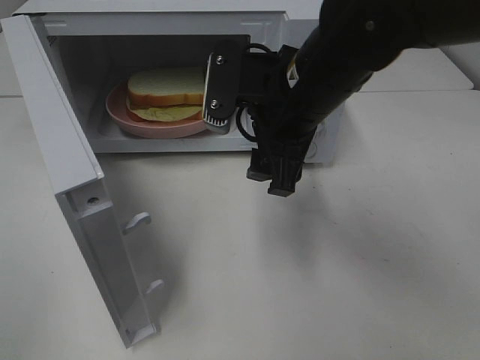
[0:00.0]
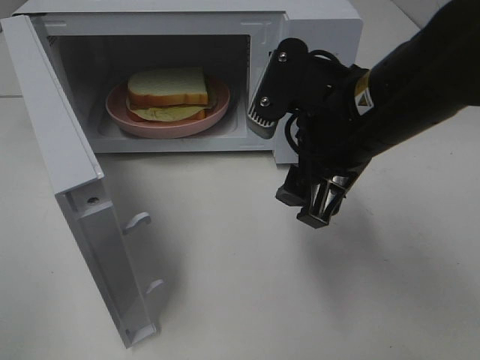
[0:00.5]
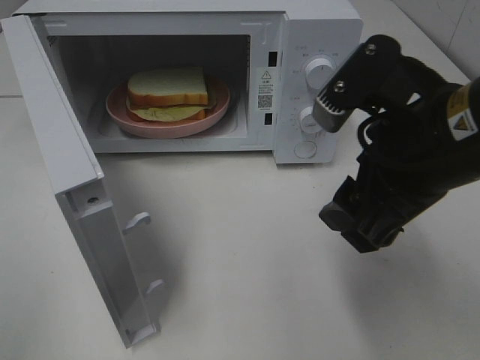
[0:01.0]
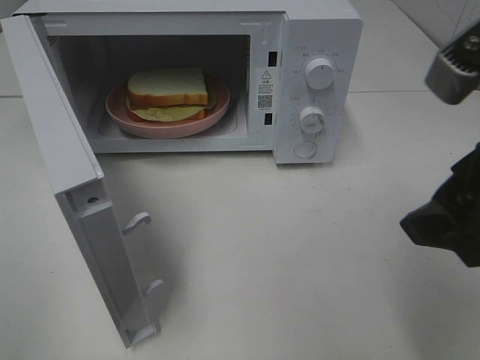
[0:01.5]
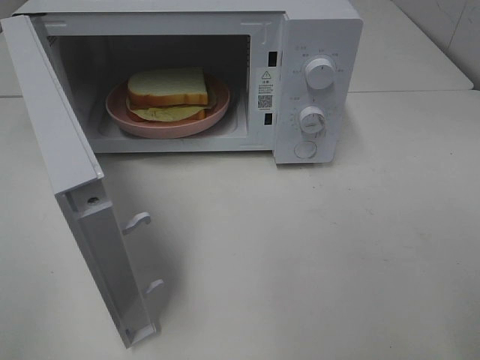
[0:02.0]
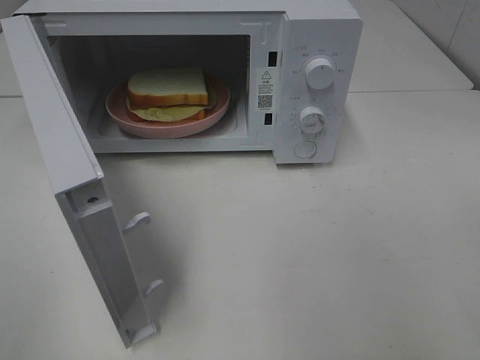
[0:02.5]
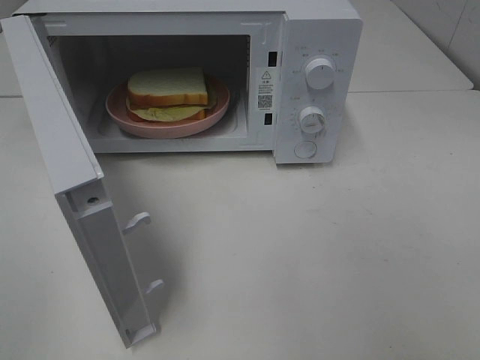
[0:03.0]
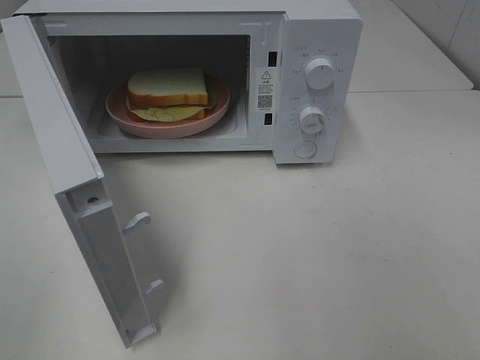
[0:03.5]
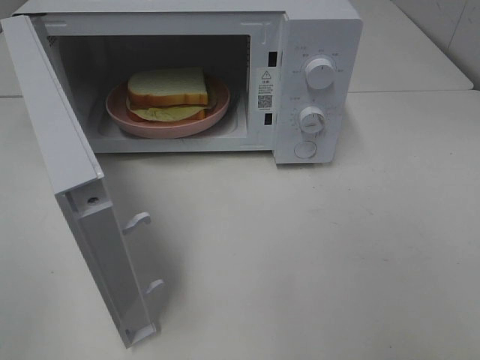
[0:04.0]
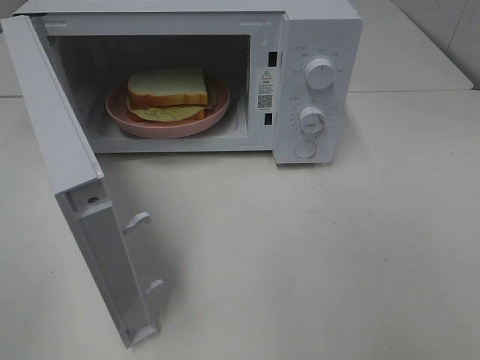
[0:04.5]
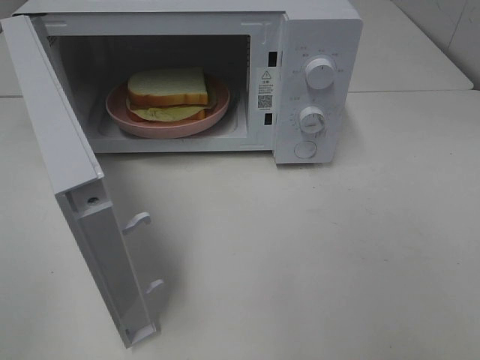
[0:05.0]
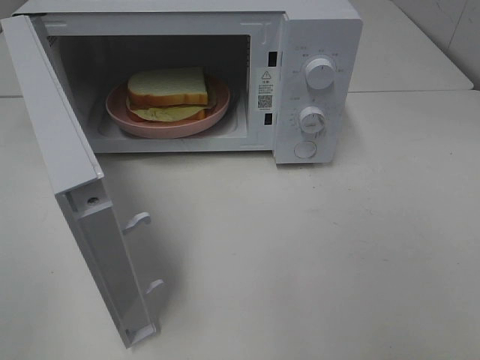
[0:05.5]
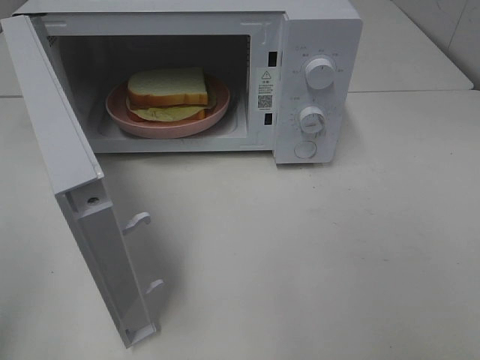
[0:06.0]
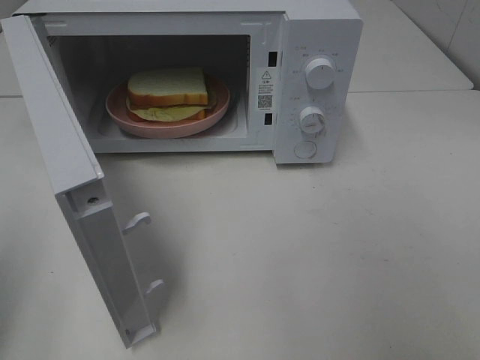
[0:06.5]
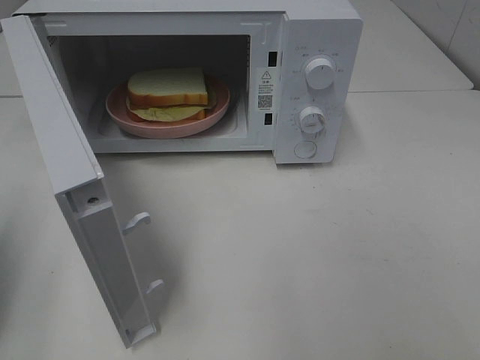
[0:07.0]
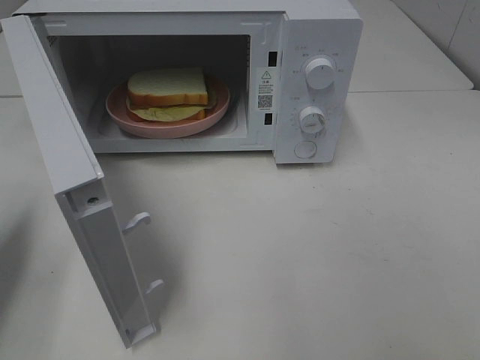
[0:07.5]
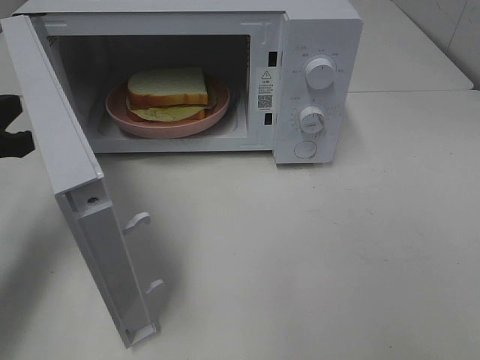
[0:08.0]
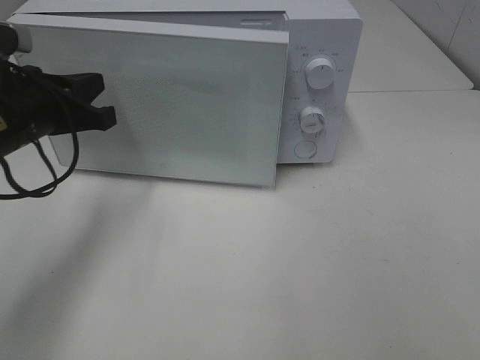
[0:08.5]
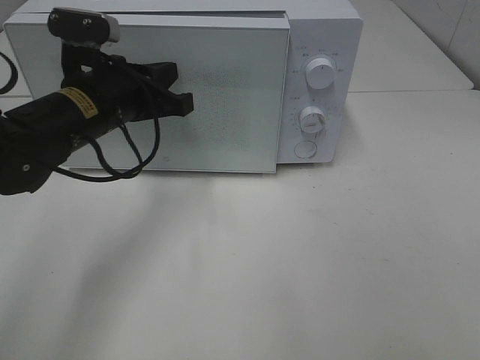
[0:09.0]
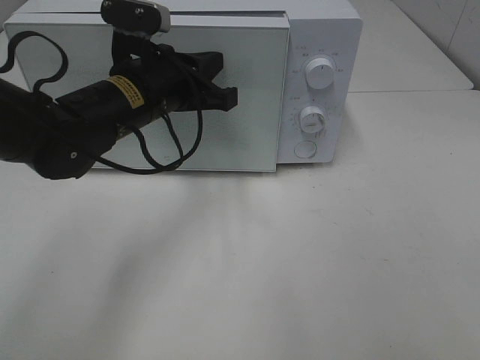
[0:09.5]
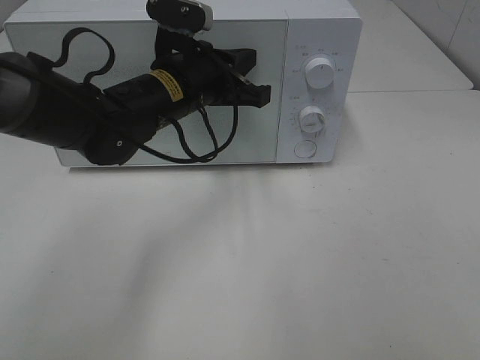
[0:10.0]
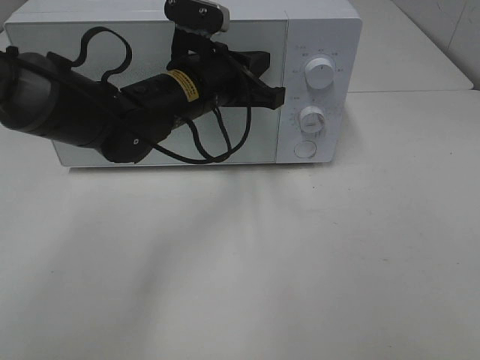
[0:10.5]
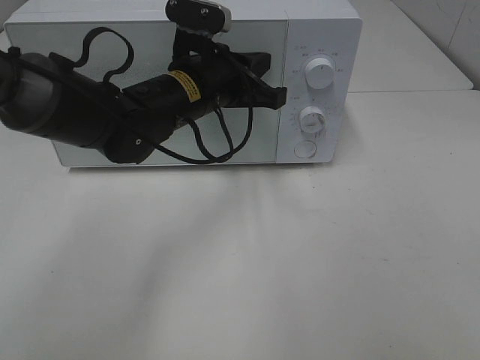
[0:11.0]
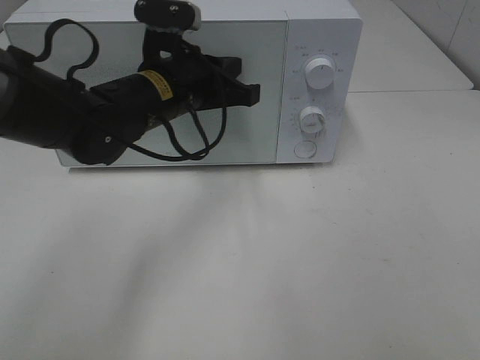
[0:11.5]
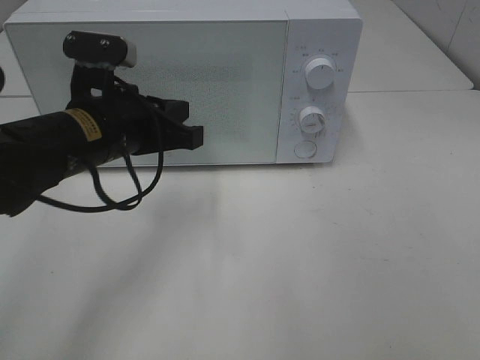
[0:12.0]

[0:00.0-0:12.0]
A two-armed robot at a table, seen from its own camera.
Task of the whole recording: Heat Sandwich.
Step, 0:00.0 to 0:11.5: Left hand: close the microwave door.
0:00.0 to 0:02.0: The right gripper moves backward, to the right and upward, approximately 25 cm.
0:06.0 to 0:08.0: The left gripper travels forward and downward by about 25 cm, and closes its fingers.
0:08.0 to 0:10.0: The left gripper heads to the right and forward, covering some 25 cm.
0:10.0 to 0:12.0: The left gripper heads backward and to the left, covering some 10 cm.

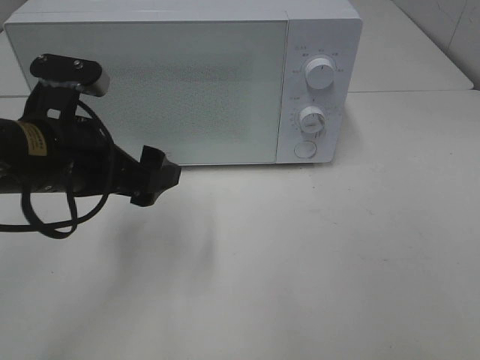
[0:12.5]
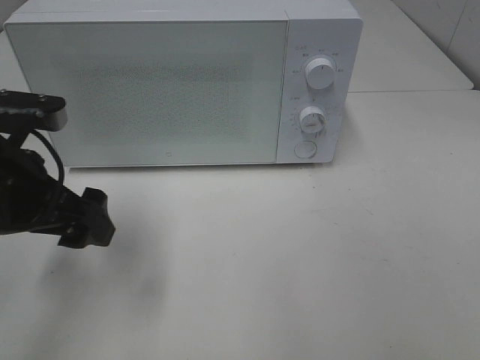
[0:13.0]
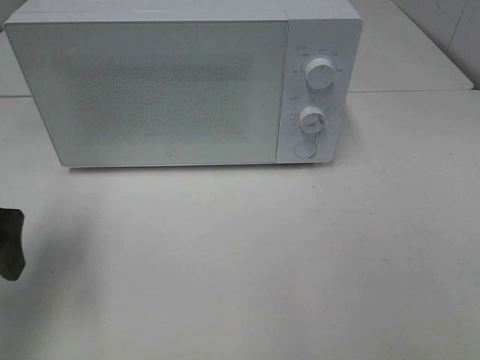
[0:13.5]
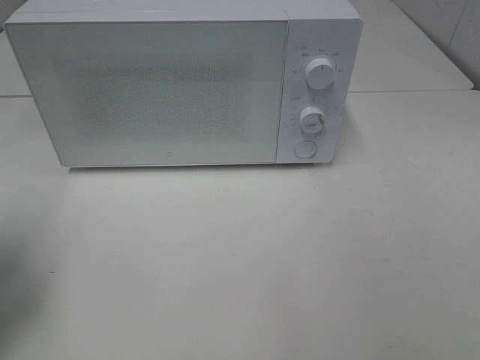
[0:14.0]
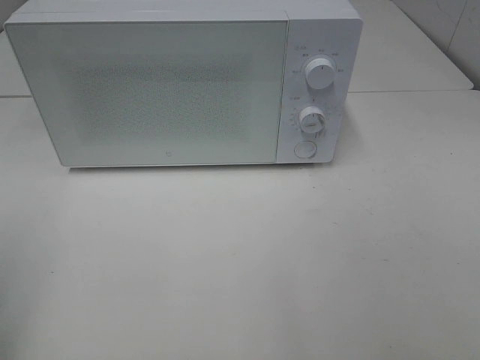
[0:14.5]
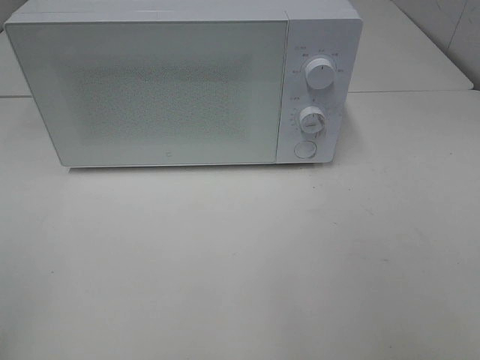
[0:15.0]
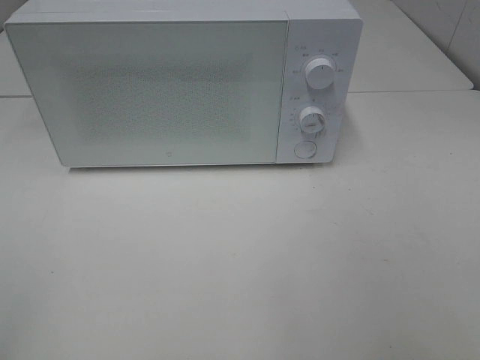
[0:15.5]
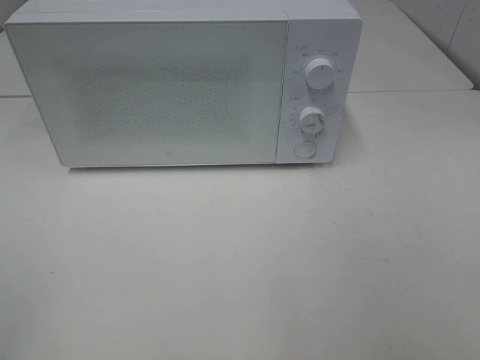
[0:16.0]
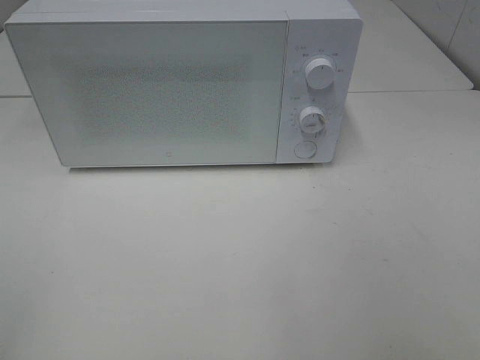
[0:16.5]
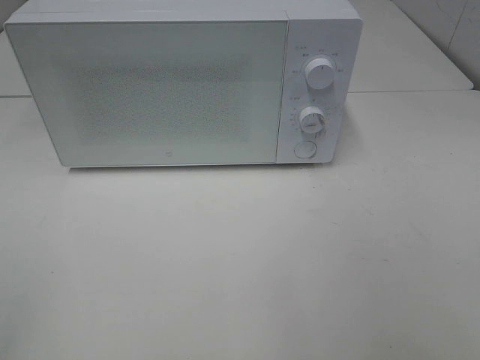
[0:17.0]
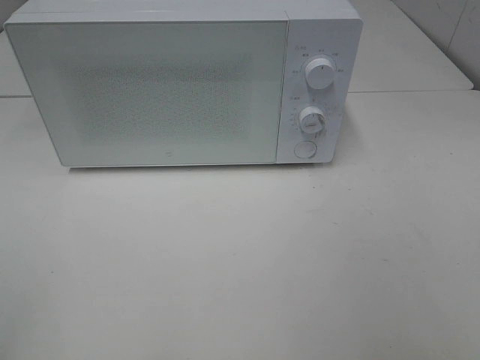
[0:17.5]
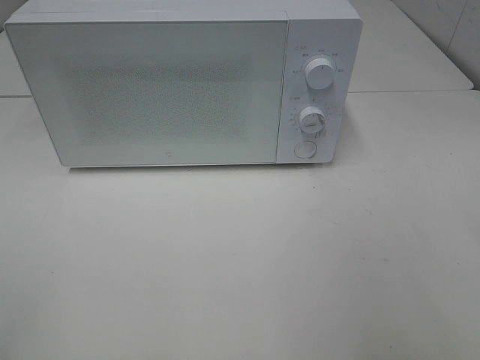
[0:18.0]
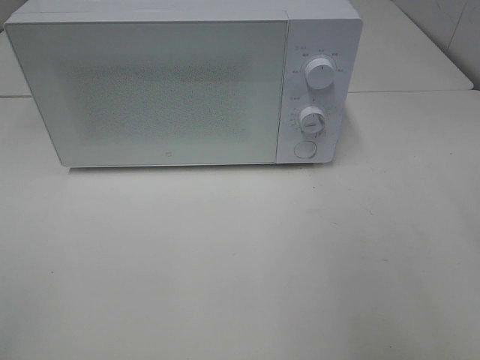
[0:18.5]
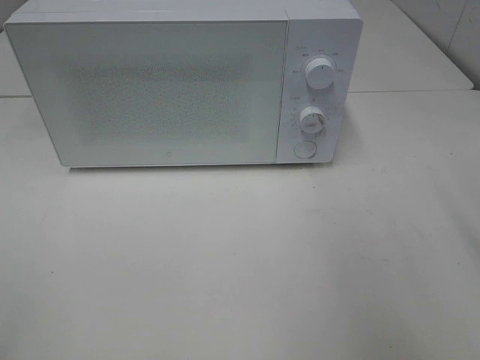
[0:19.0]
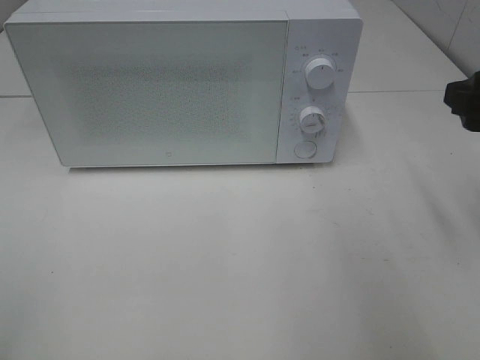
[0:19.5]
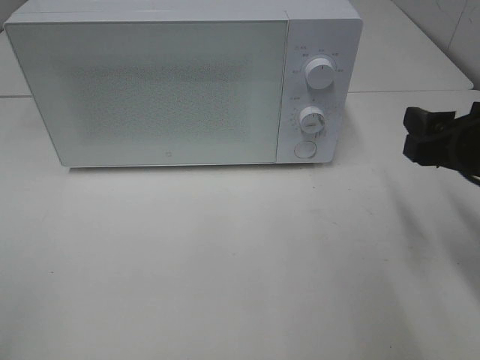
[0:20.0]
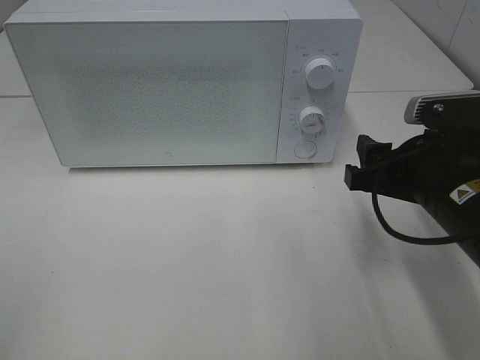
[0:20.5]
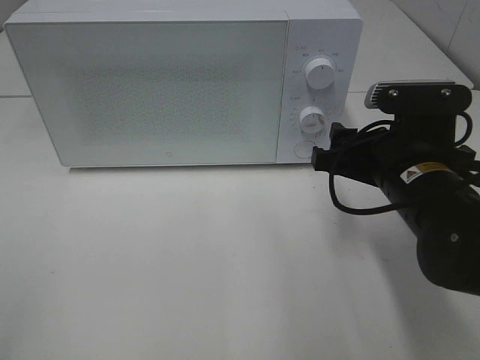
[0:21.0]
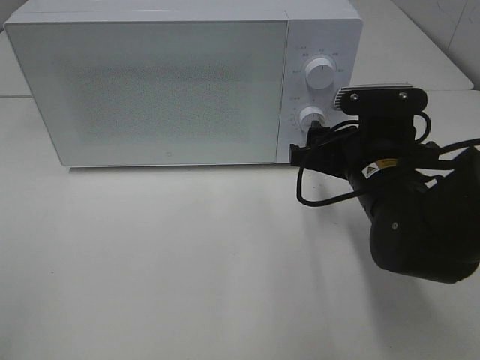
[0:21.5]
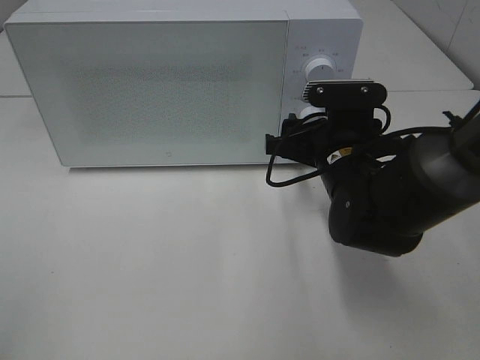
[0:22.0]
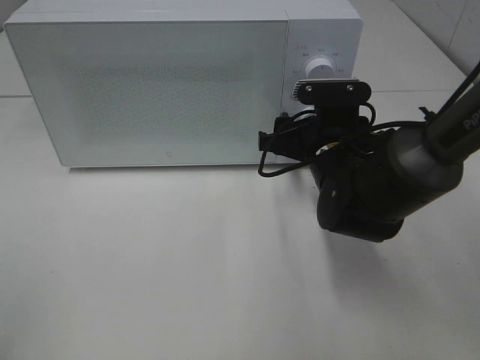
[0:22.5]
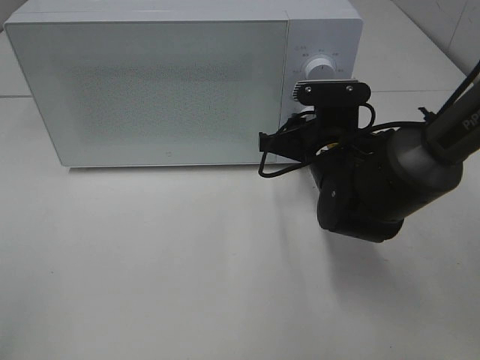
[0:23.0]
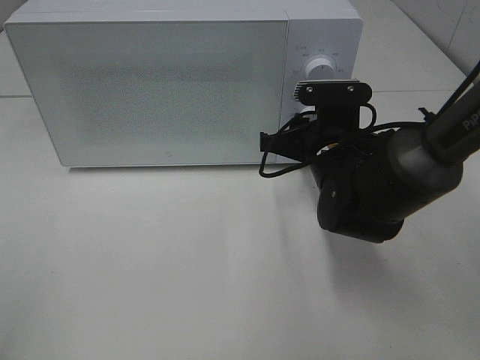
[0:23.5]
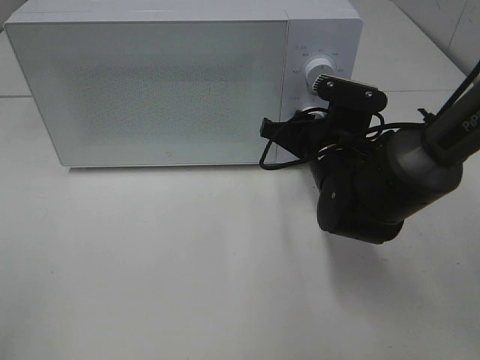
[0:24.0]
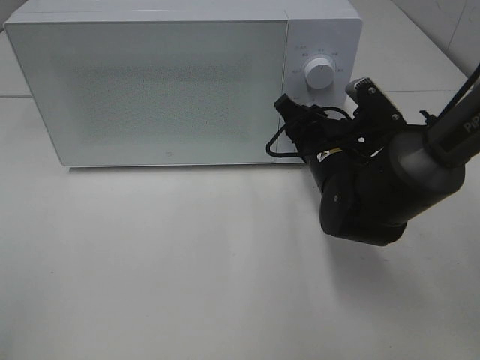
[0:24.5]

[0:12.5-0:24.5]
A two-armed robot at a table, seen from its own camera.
Task of the whole recording: Heat Sandwich.
0:12.5 to 0:14.5: The left gripper moves to the left, backward and upward, some 25 cm.
0:18.5 to 0:20.5: The right gripper goes approximately 20 cm downward, forward and to the left.
0:20.5 to 0:22.5: The right gripper moves forward and to the left, roughly 15 cm.
0:22.5 to 0:24.5: The right gripper closes up.

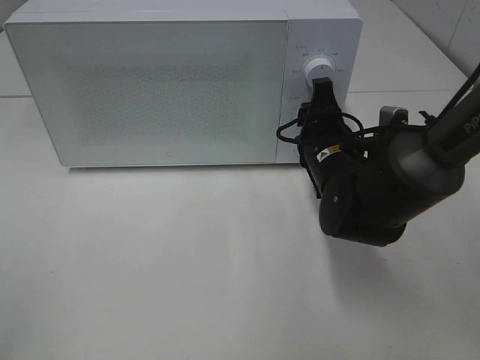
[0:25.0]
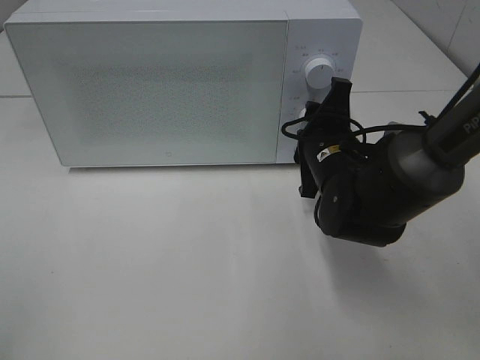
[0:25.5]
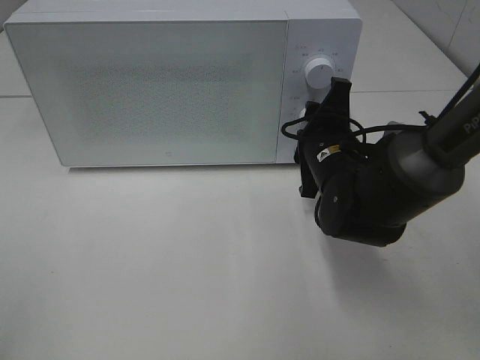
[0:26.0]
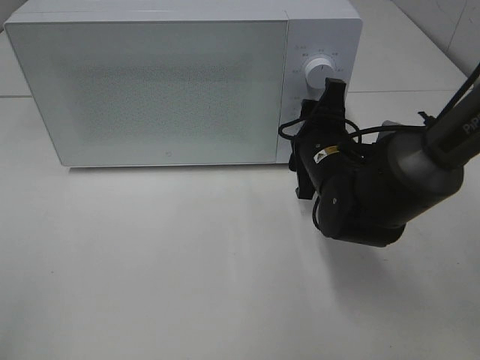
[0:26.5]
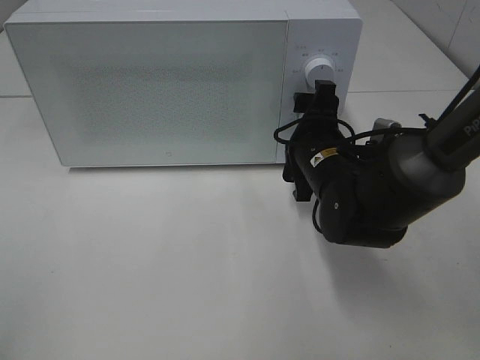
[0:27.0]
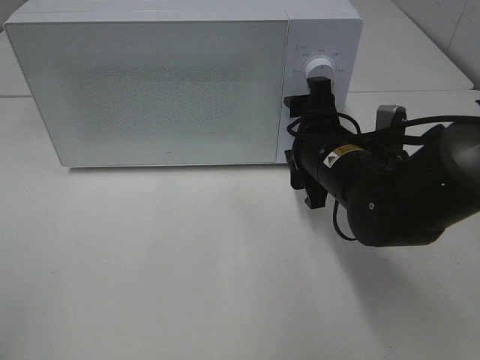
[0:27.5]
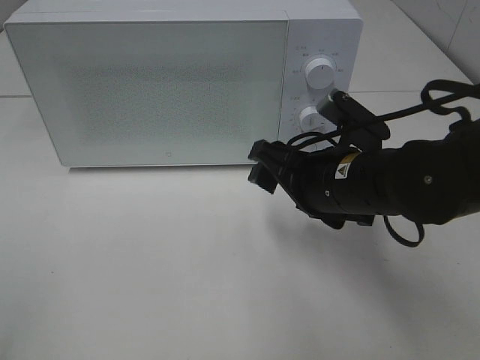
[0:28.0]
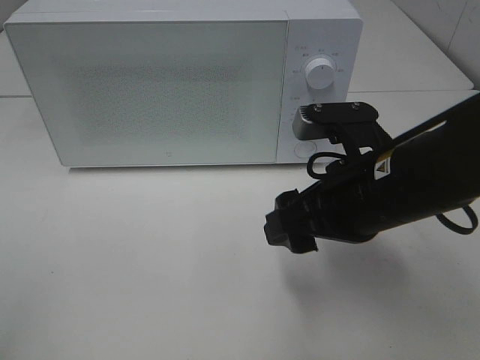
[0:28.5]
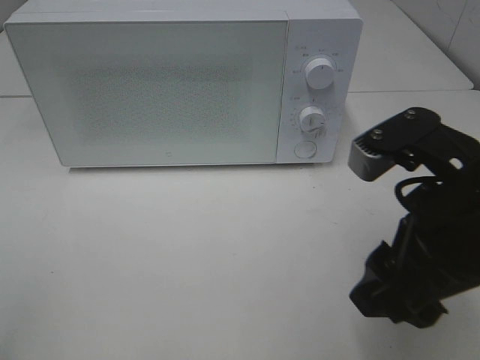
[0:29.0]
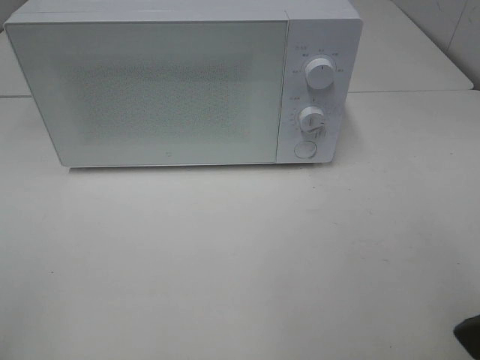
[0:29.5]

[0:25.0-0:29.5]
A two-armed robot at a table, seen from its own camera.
Task of the whole recording: Heat Sandwich.
Step, 0:25.0 to 0:27.5: Right hand: twist timer button.
0:25.0 to 0:27.0: The right gripper opens its fingers.
0:27.0 to 0:29.5: The right gripper goes some 30 cm backward, upward and to the right.
